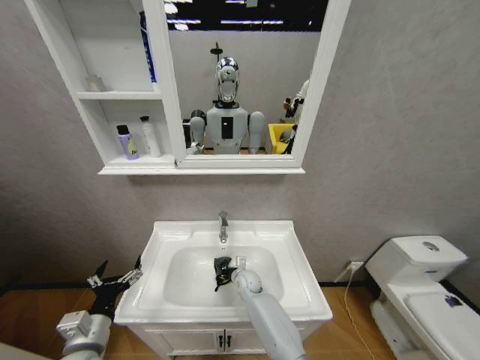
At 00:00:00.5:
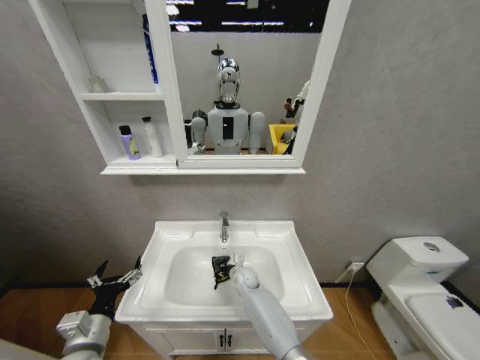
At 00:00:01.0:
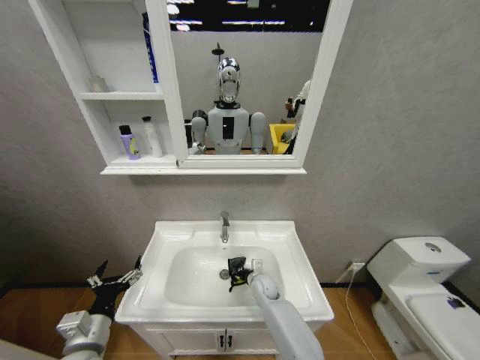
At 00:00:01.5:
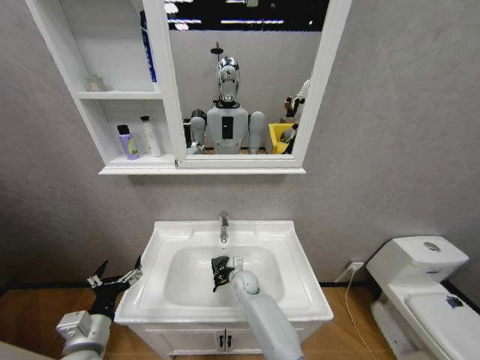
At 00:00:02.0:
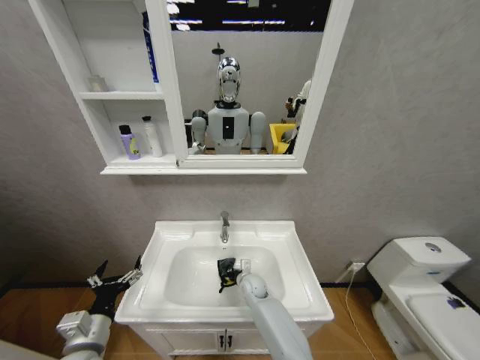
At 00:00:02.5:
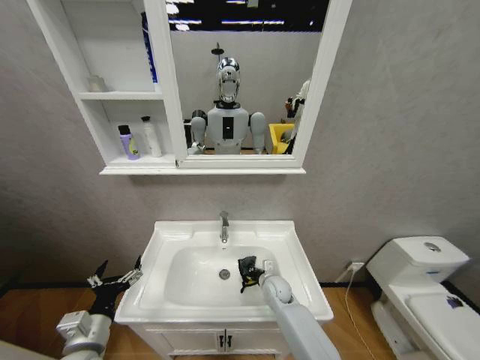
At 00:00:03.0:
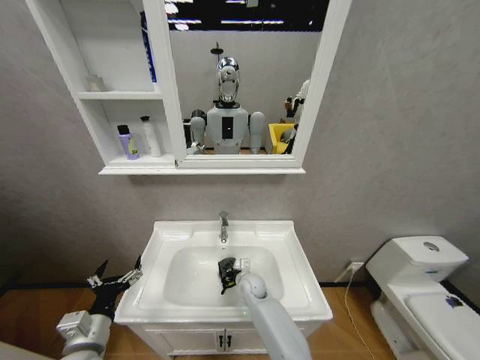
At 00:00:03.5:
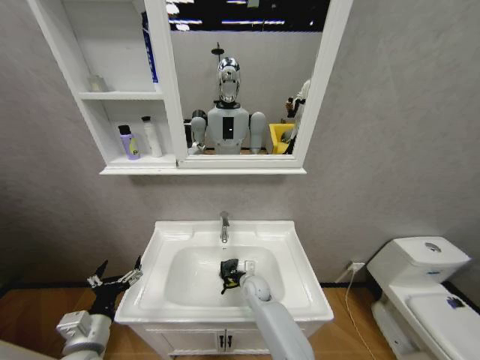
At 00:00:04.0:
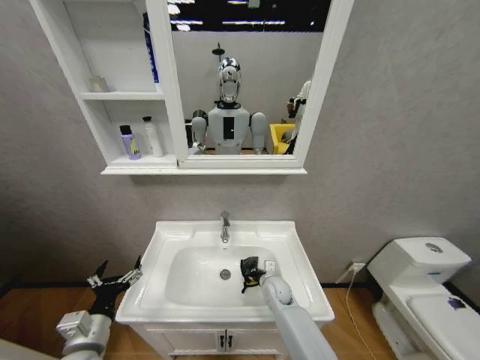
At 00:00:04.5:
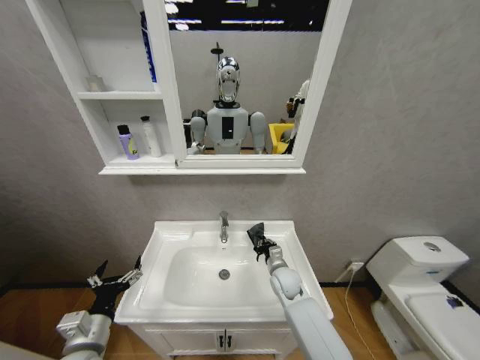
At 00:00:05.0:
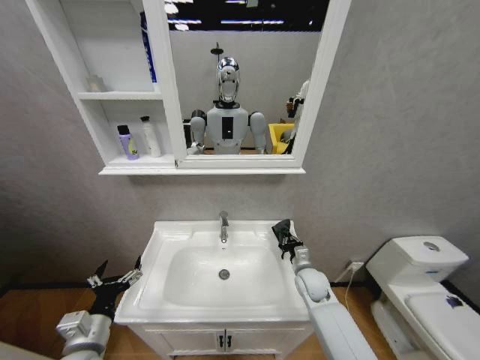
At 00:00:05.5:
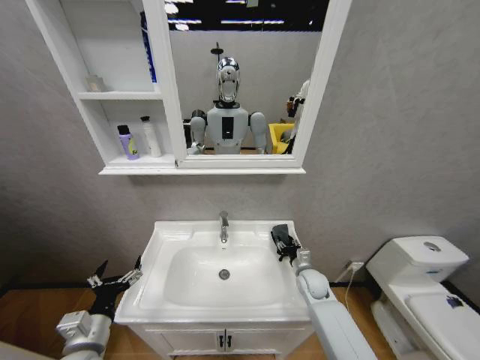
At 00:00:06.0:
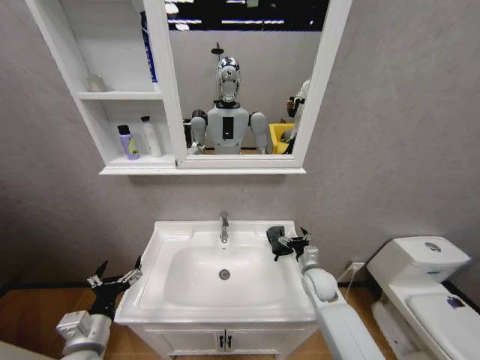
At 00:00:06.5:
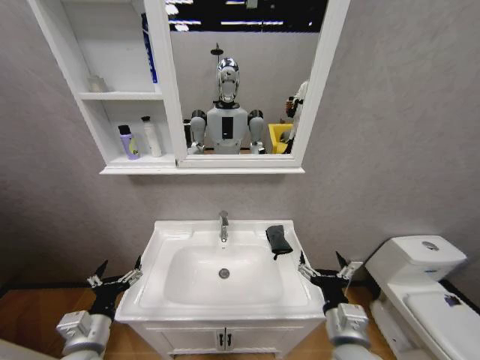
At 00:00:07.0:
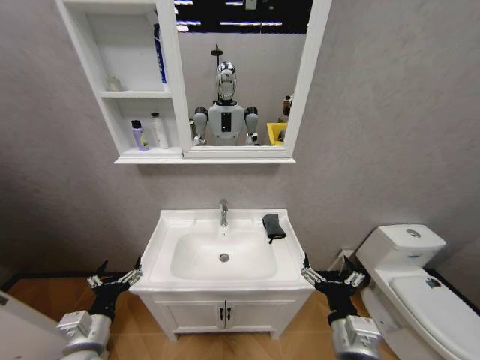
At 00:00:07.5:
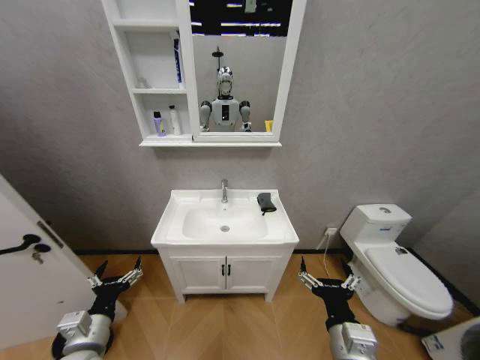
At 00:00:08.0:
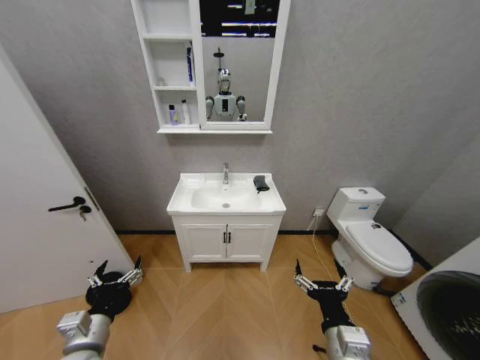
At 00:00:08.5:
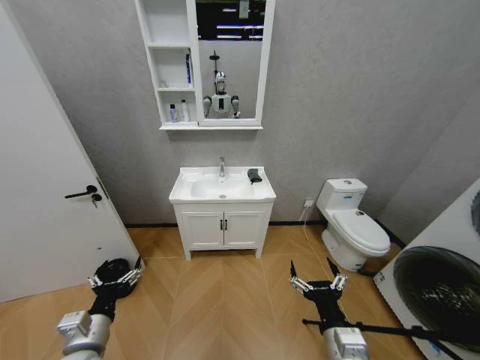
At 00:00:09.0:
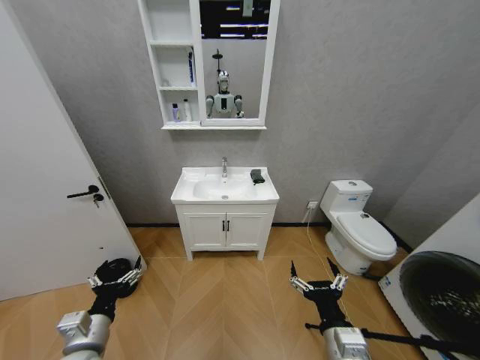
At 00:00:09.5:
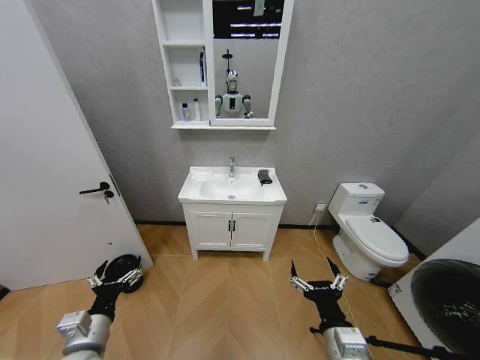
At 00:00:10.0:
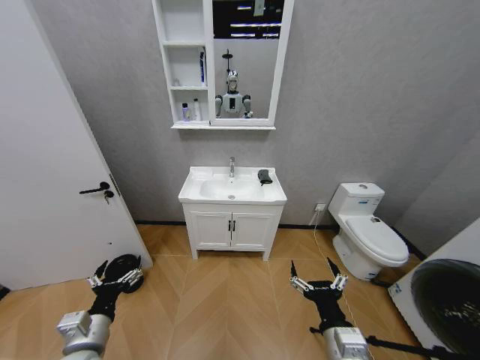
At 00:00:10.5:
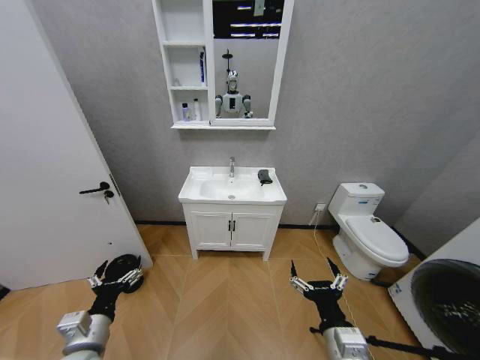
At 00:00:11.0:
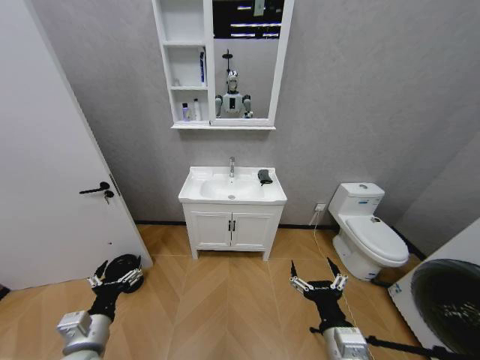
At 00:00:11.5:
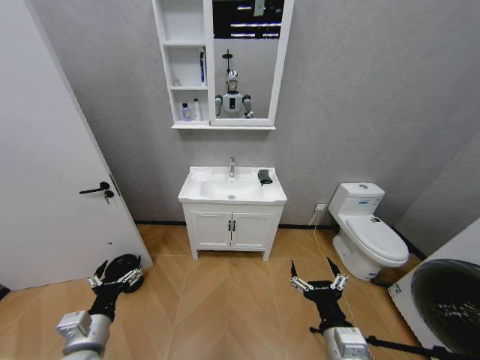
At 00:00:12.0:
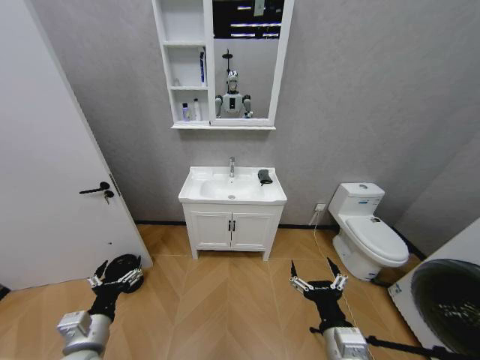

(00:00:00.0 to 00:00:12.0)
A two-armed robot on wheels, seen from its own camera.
Task of the whole recording: Move facial cleanser and shampoo from washbasin to cabinet, then wipe washbasin with towel.
00:00:02.0 - 00:00:04.0: The right gripper swings left and right, approximately 10 cm each way, with 2 reversals.
00:00:04.0 - 00:00:06.0: The right gripper heads to the right and upward, covering some 15 cm, and opens its fingers.
00:00:06.0 - 00:00:08.0: The right gripper shifts about 25 cm backward.
00:00:10.0 - 00:00:12.0: Neither gripper changes place.

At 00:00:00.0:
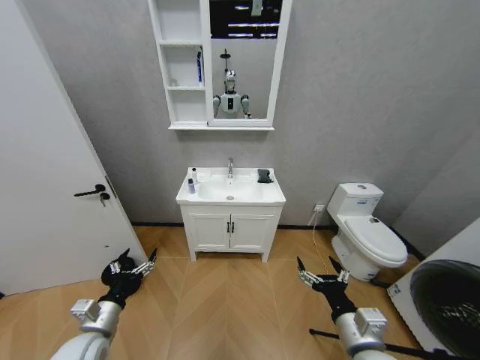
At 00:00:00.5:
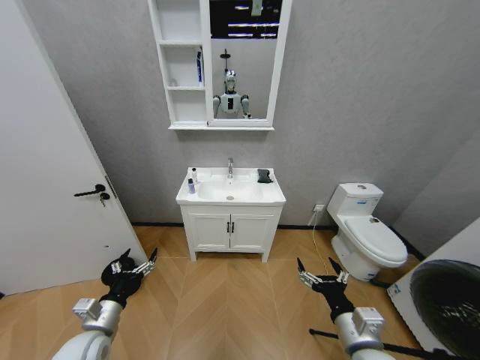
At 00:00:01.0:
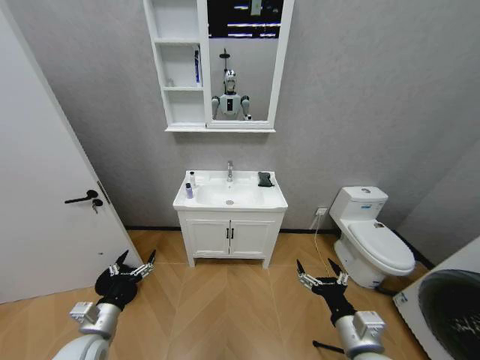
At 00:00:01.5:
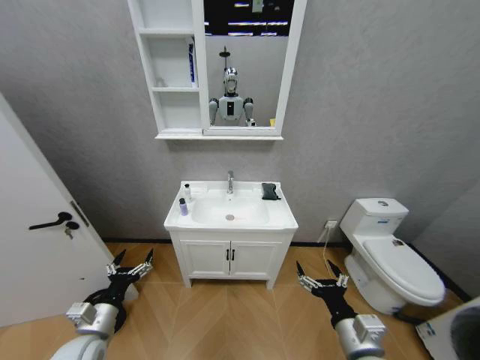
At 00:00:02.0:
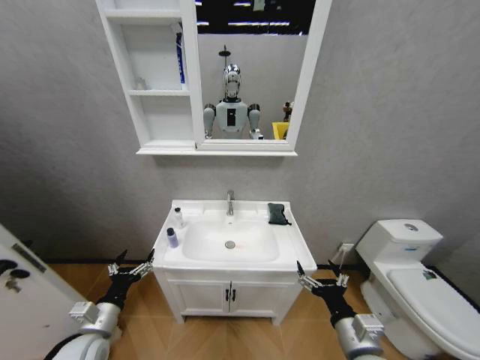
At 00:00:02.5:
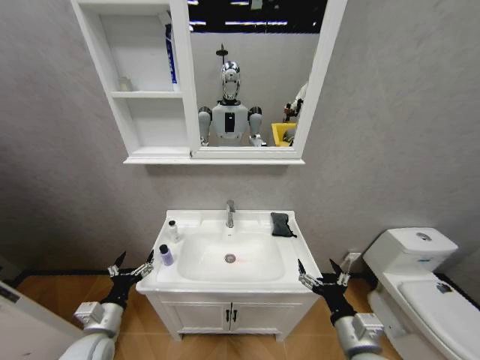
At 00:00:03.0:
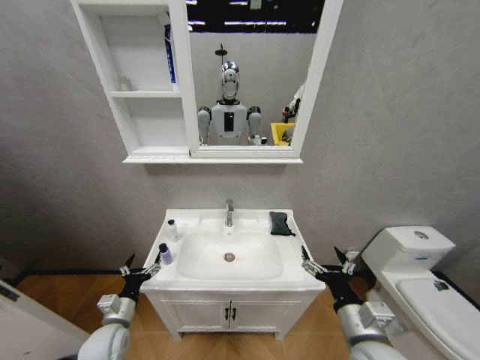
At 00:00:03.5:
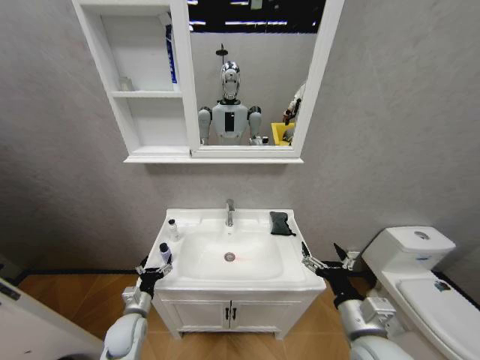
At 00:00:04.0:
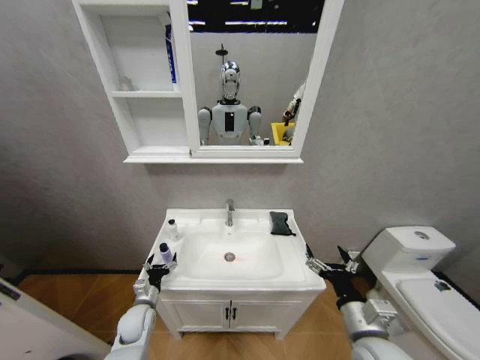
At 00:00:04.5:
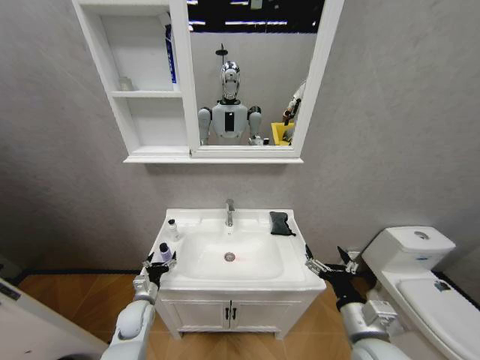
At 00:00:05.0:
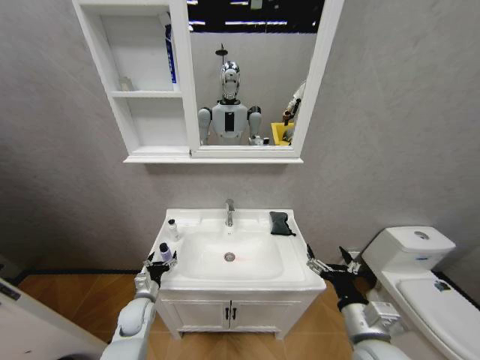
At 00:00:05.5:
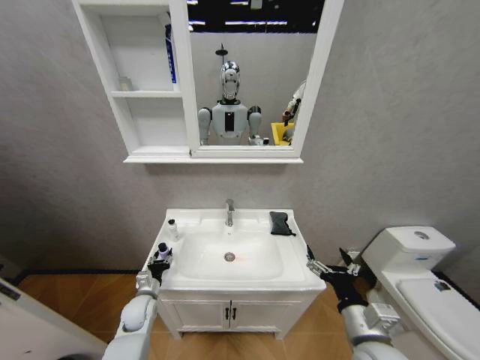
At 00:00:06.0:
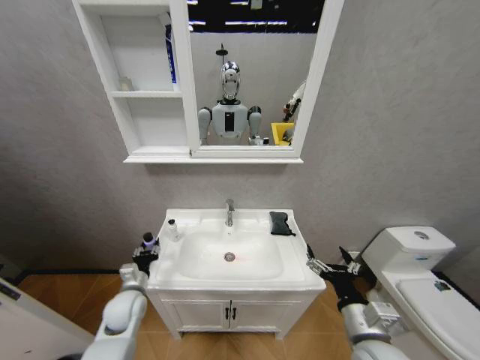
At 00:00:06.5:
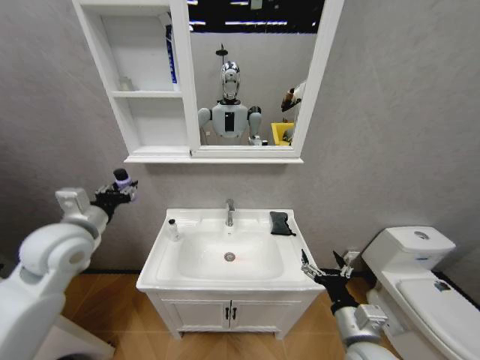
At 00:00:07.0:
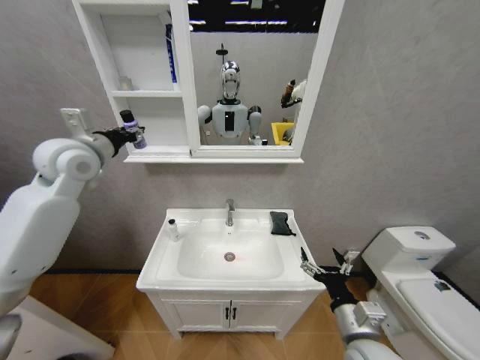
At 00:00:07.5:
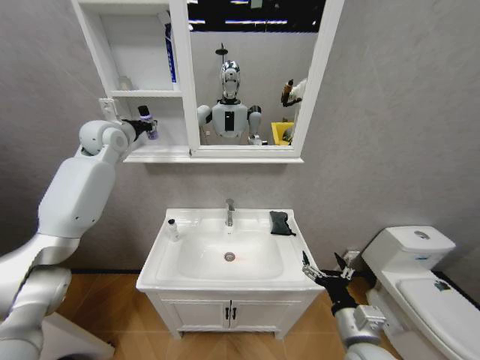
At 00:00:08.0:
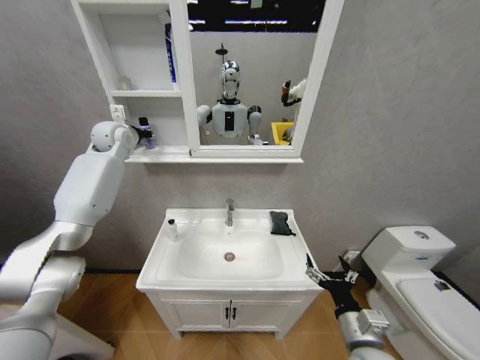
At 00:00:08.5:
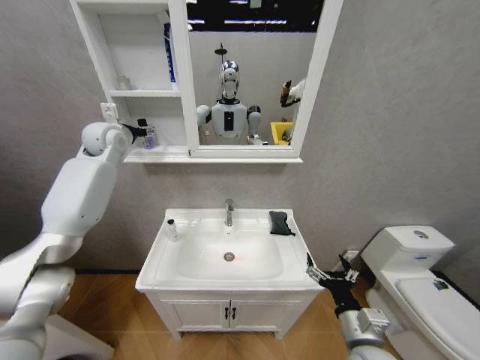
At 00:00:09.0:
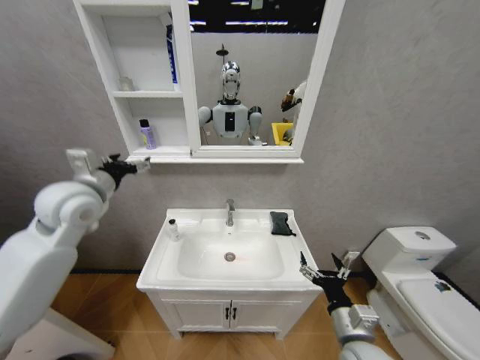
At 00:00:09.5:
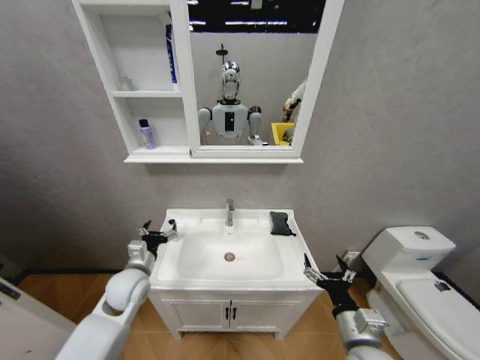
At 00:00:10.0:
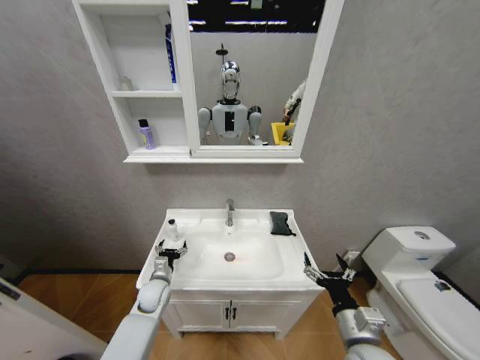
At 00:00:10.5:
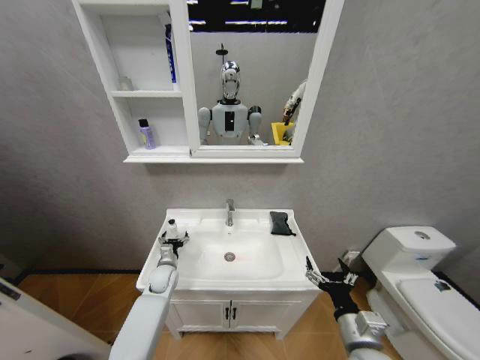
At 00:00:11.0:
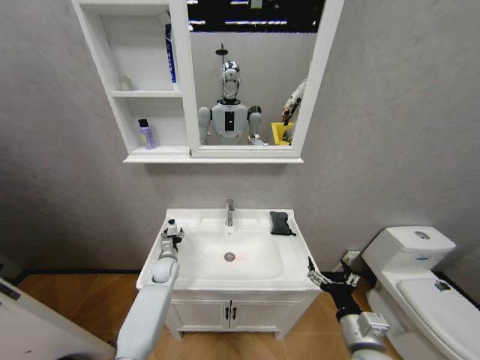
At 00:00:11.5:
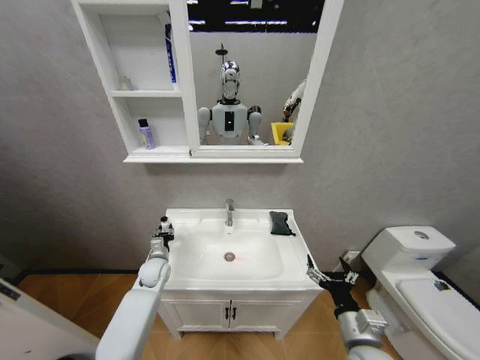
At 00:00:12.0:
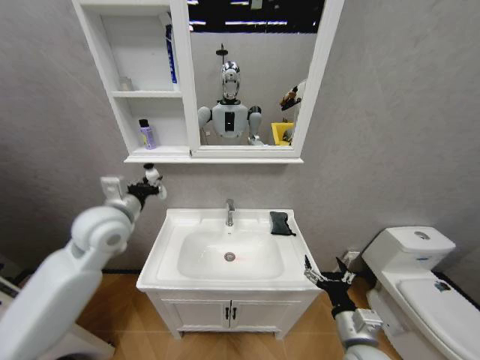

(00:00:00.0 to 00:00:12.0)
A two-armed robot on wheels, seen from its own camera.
Task of the whole recording: Move facial cleanser and shampoo from washbasin to cabinet, then wipe washbasin with towel.
00:00:02.0 - 00:00:04.0: The left gripper shifts about 15 cm downward and forward.
00:00:04.0 - 00:00:06.0: The left gripper travels upward by roughly 10 cm, and closes.
00:00:06.0 - 00:00:08.0: The left gripper heads upward and forward, covering about 50 cm.
00:00:08.0 - 00:00:10.0: The left gripper moves downward and backward, roughly 50 cm, and opens its fingers.
00:00:10.0 - 00:00:12.0: The left gripper heads upward, covering approximately 30 cm, and closes its fingers.

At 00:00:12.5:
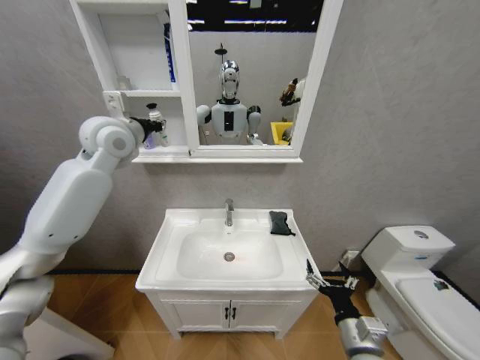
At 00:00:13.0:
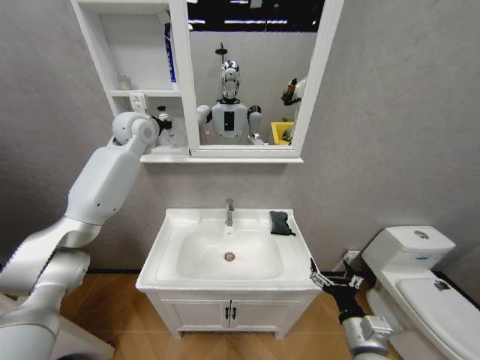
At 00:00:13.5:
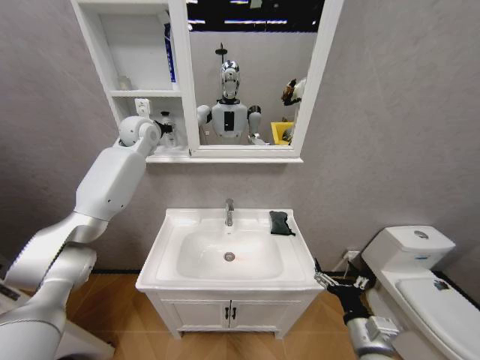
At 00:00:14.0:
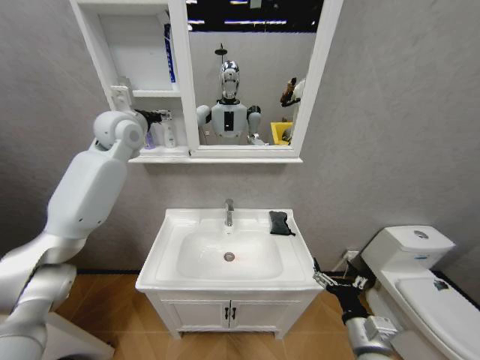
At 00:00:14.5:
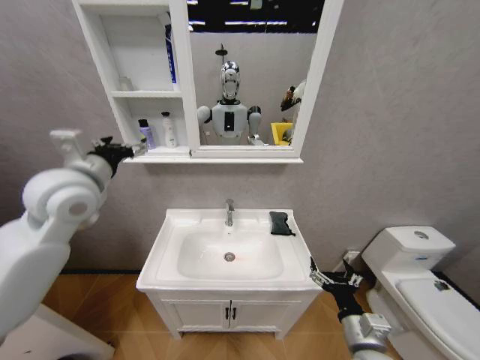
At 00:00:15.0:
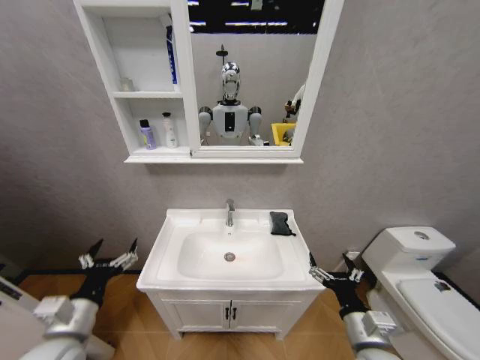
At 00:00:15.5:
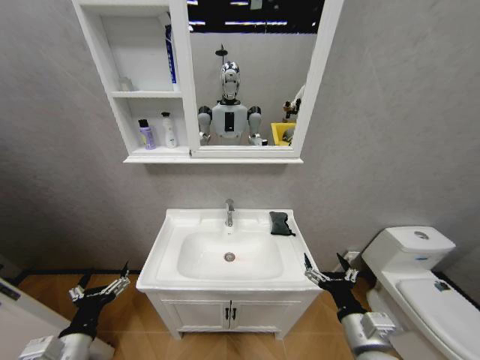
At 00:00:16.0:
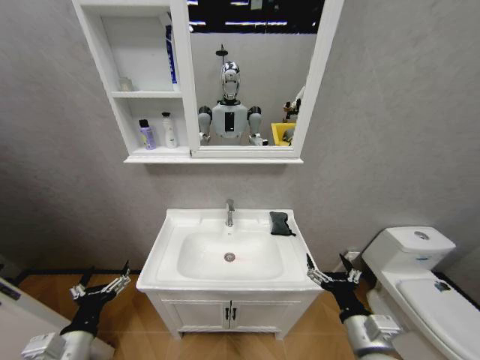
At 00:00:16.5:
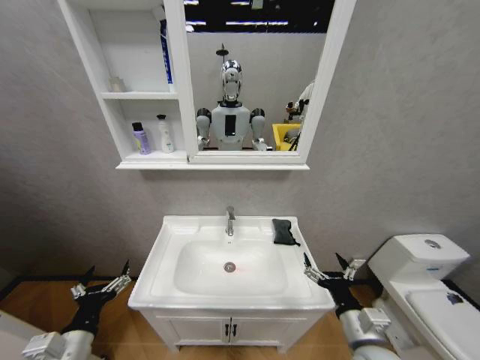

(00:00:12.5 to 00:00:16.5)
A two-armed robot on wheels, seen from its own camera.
Task of the whole recording: Move facial cleanser and shampoo from washbasin to cabinet, then wipe washbasin with towel.
00:00:12.5 - 00:00:14.5: The left gripper goes about 15 cm backward and downward, and opens up.
00:00:14.5 - 00:00:16.5: The left gripper travels downward and backward by roughly 35 cm.
